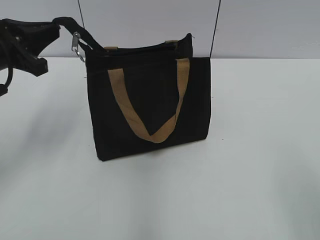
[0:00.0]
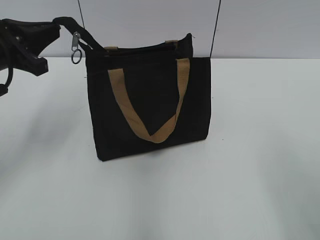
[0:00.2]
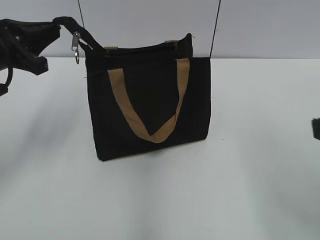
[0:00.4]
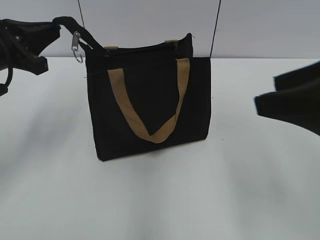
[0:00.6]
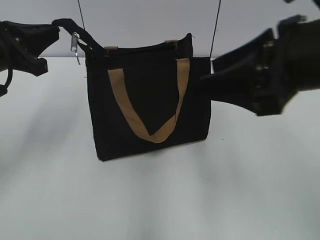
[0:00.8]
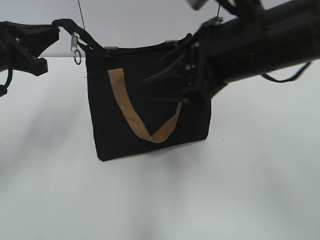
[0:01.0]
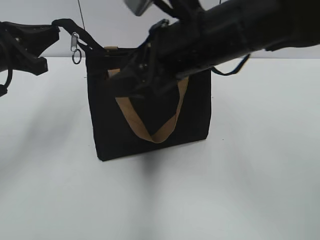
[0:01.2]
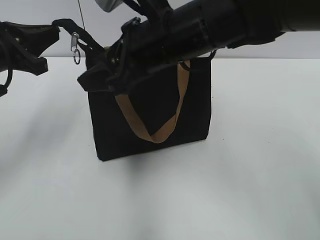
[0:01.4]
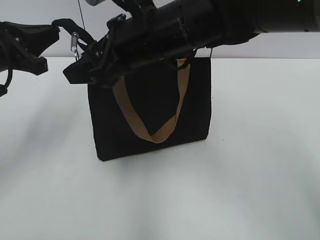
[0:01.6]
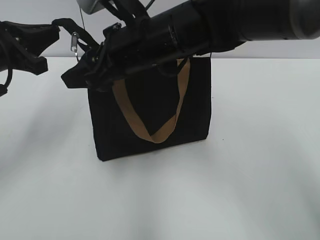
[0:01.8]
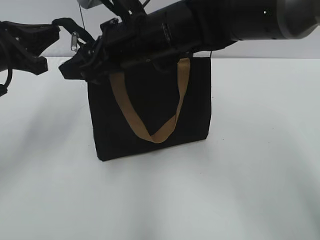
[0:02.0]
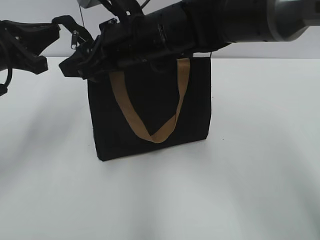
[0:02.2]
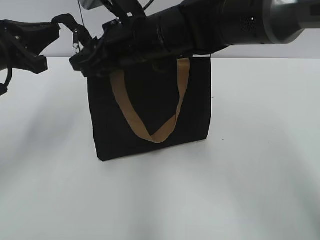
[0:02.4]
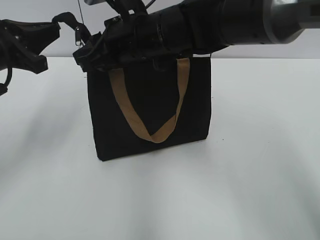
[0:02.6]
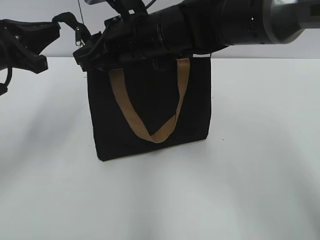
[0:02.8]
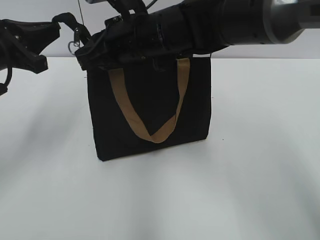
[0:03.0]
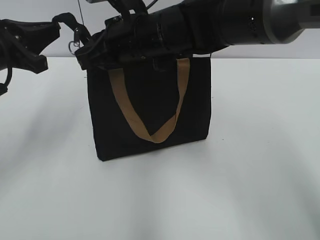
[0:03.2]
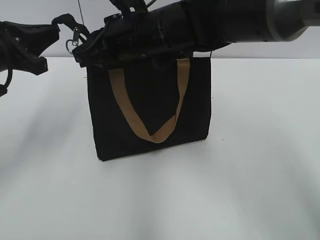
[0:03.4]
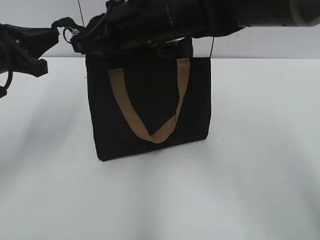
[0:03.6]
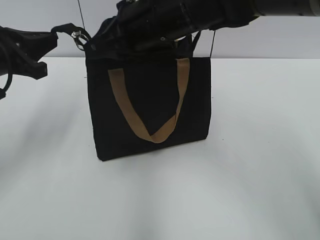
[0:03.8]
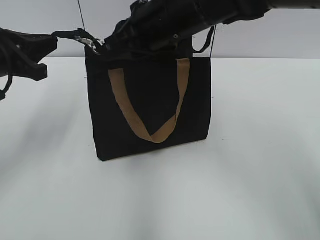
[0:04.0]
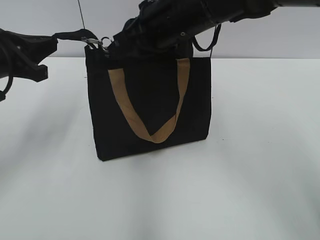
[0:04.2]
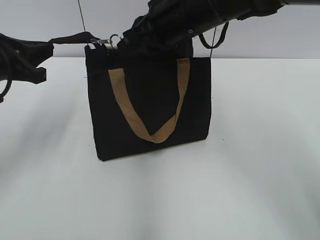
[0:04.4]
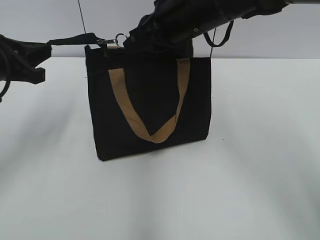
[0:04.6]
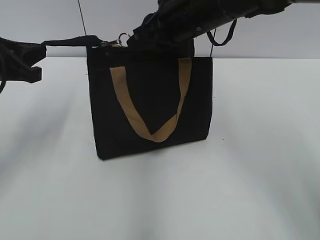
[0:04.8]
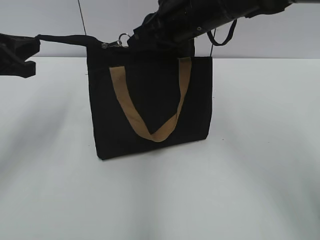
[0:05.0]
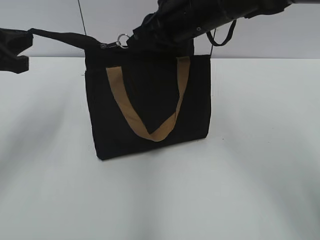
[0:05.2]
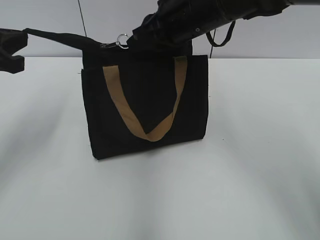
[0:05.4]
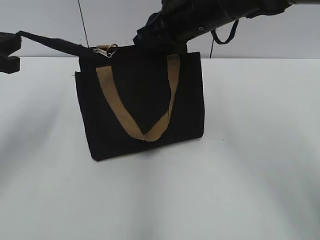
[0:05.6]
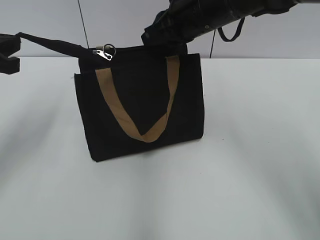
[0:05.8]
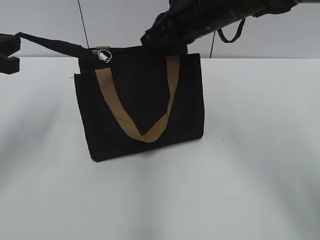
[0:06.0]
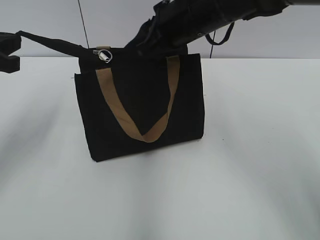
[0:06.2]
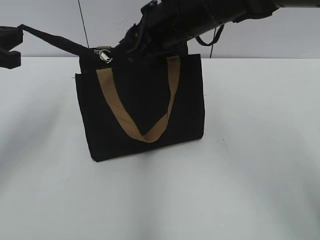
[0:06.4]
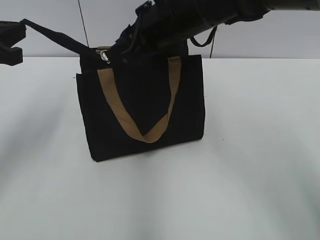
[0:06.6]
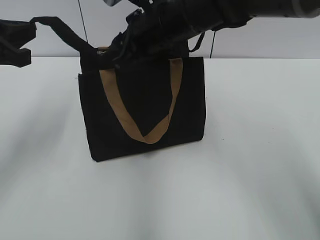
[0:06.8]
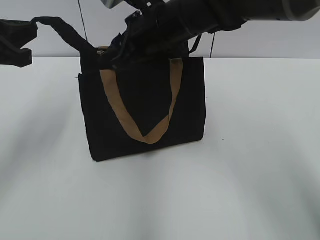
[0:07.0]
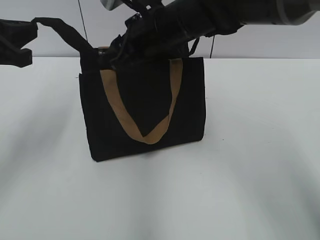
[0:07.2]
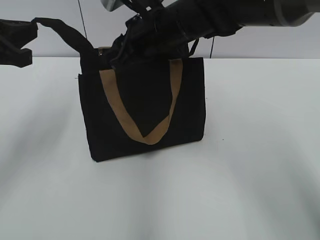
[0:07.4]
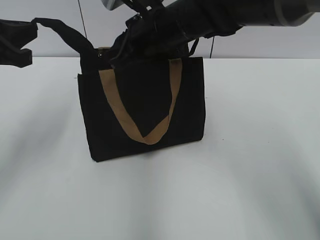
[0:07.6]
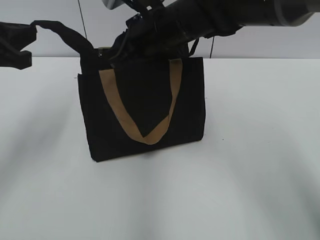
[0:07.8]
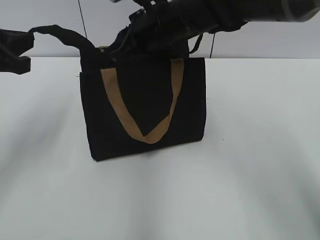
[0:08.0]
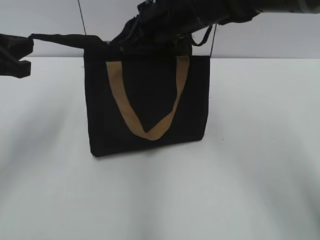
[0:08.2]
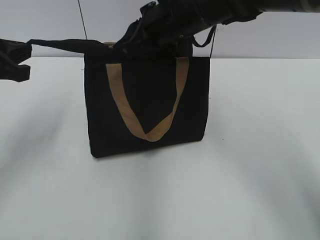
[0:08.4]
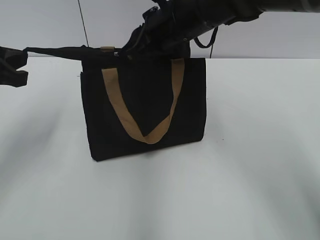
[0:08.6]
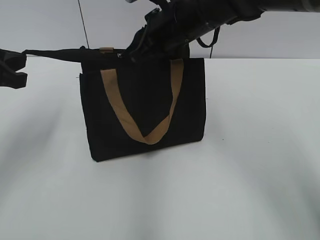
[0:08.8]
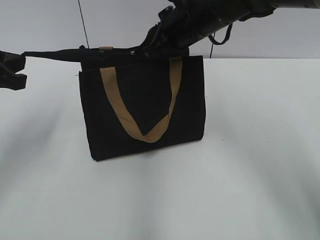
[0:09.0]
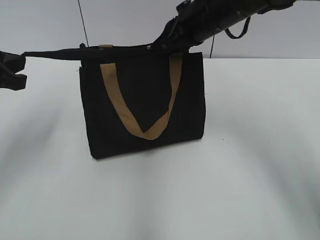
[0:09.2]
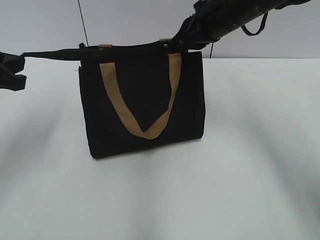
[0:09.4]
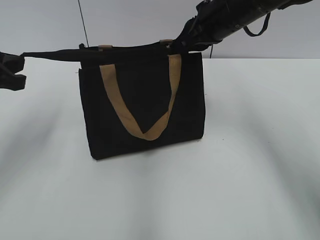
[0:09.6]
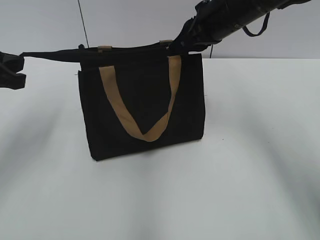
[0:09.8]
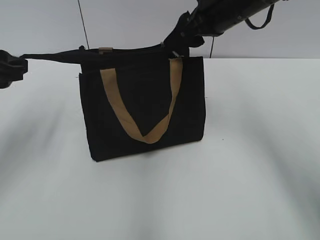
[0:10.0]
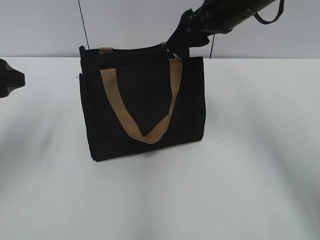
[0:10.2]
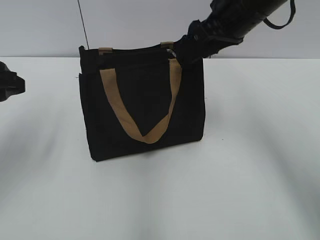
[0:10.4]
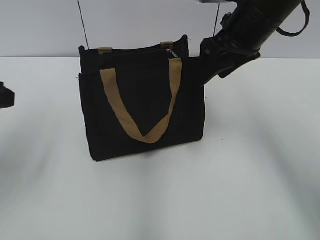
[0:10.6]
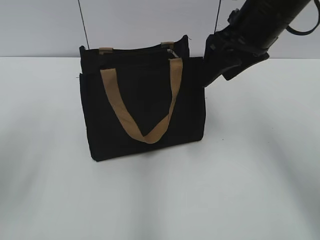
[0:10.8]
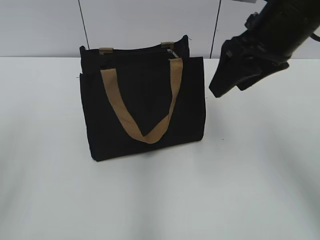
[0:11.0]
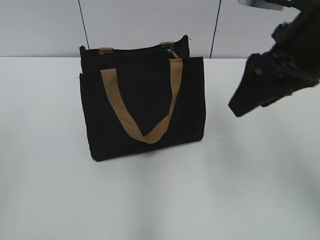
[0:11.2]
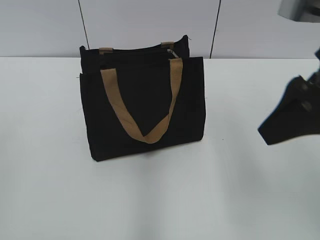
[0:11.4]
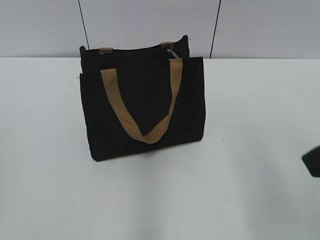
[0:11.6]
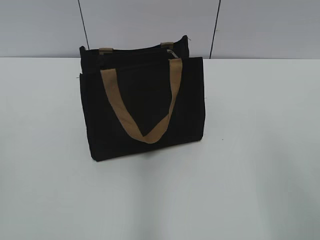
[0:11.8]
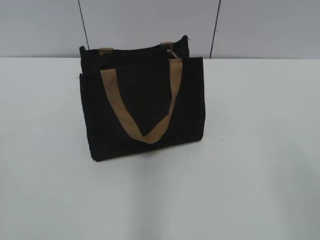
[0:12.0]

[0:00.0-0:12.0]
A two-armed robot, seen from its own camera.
Step, 0:00.0 to 0:09.8: Zip up the bag with your right hand.
Step, 0:10.2 to 0:10.4: Grab the zipper with your left hand.
0:00.0 to 0:01.6: The right gripper goes some 40 cm forward and to the left.
0:01.6 to 0:03.0: The right gripper ends up about 5 cm from where it was, and closes its fingers.
0:03.0 to 0:04.4: The right gripper shifts roughly 5 cm to the right.
0:04.4 to 0:06.0: The grippers stay close to where they were, moving slightly.
0:06.0 to 0:07.6: The right gripper travels to the left by roughly 5 cm, and opens, then closes once more.
0:07.6 to 0:09.0: The right gripper shifts by approximately 5 cm.
0:09.0 to 0:10.4: The left gripper opens up. Meanwhile the right gripper heads to the right, covering some 5 cm, and opens up.
0:10.4 to 0:12.0: Both grippers move backward, approximately 30 cm.
